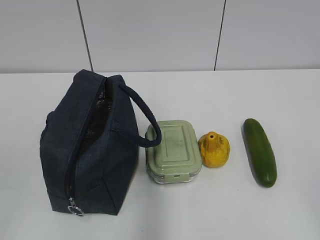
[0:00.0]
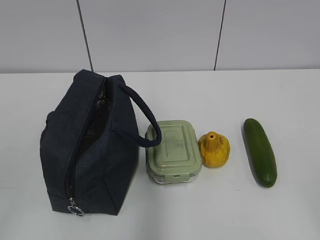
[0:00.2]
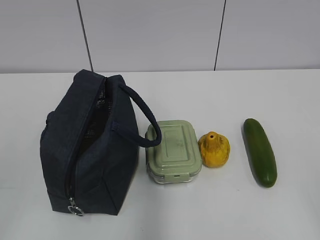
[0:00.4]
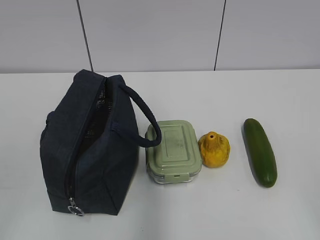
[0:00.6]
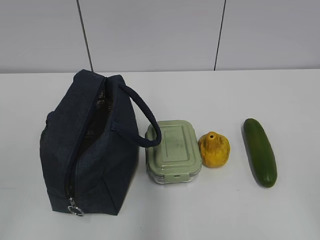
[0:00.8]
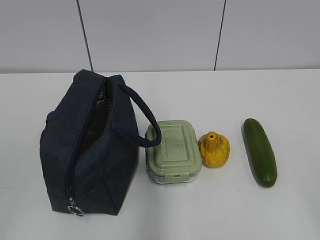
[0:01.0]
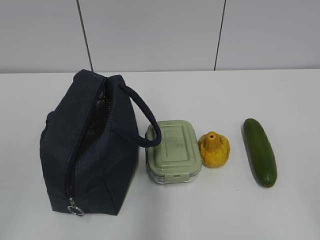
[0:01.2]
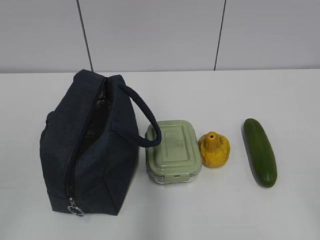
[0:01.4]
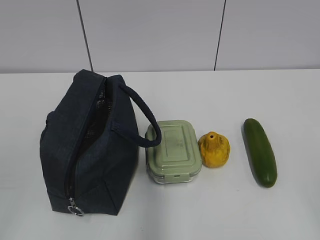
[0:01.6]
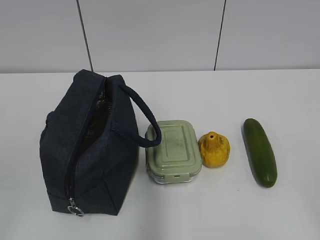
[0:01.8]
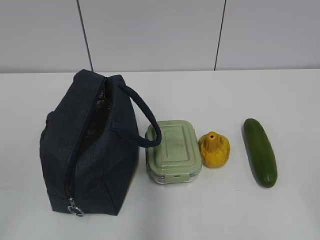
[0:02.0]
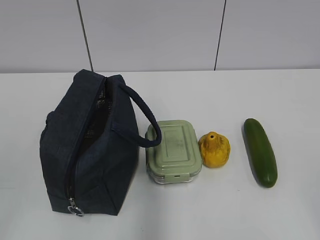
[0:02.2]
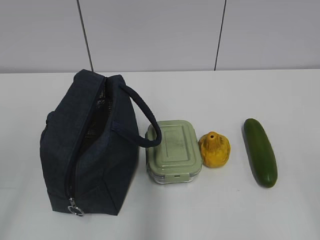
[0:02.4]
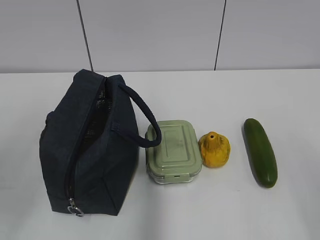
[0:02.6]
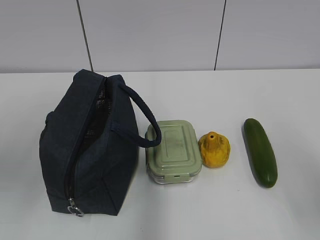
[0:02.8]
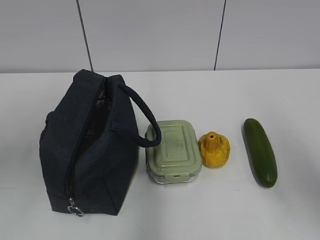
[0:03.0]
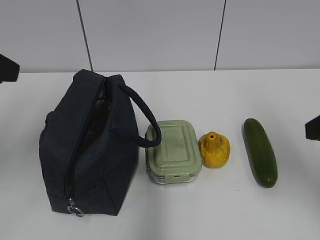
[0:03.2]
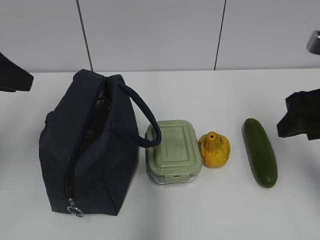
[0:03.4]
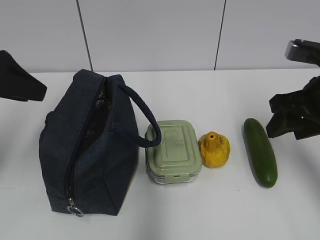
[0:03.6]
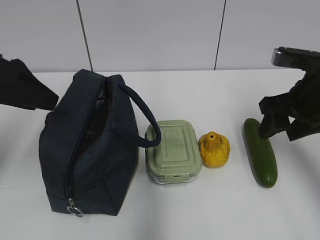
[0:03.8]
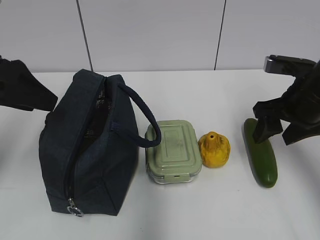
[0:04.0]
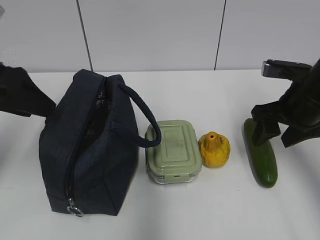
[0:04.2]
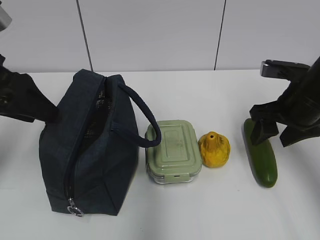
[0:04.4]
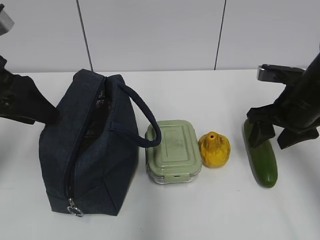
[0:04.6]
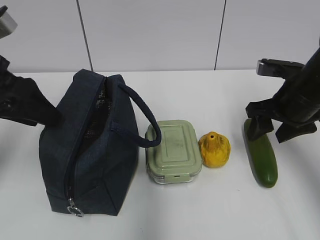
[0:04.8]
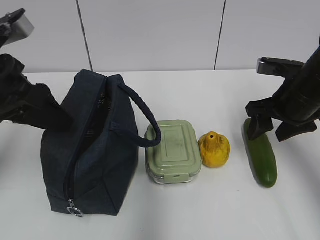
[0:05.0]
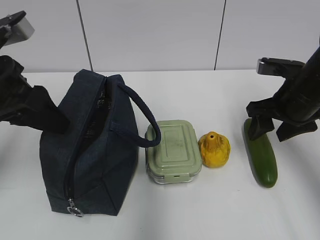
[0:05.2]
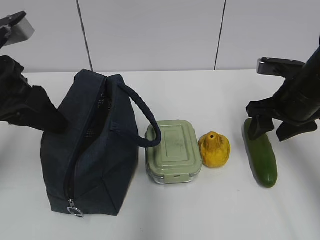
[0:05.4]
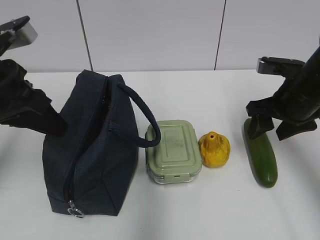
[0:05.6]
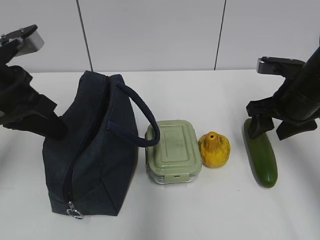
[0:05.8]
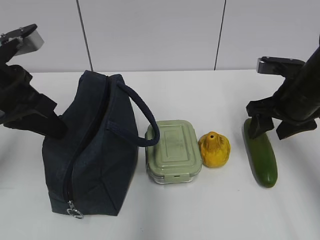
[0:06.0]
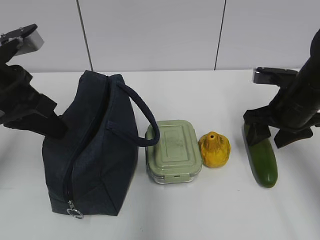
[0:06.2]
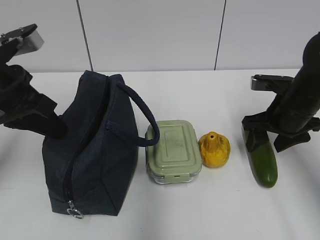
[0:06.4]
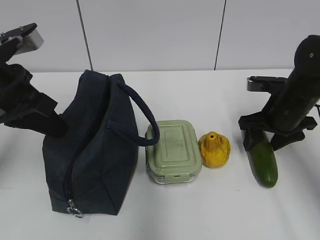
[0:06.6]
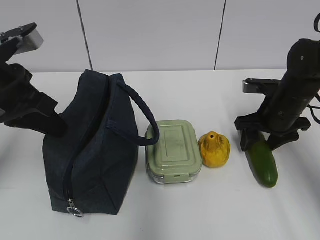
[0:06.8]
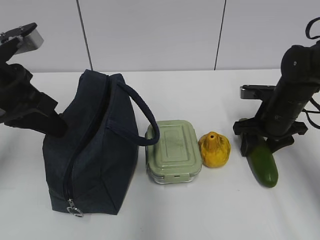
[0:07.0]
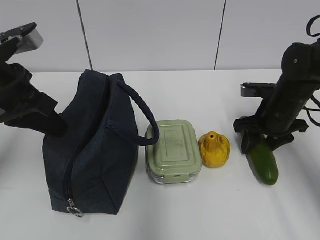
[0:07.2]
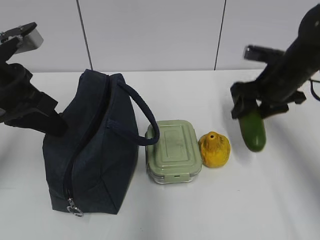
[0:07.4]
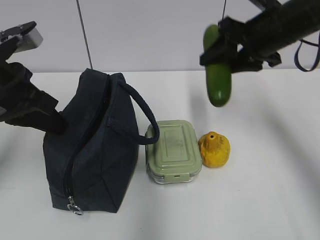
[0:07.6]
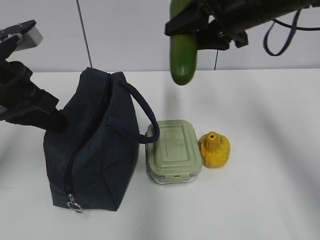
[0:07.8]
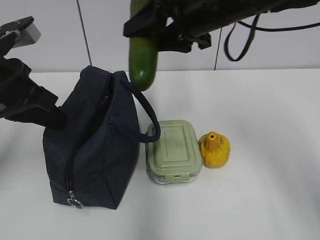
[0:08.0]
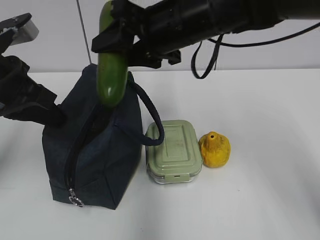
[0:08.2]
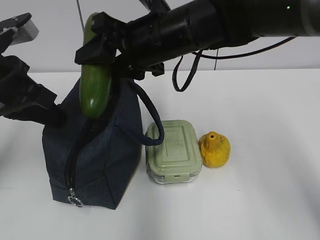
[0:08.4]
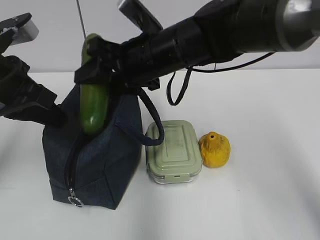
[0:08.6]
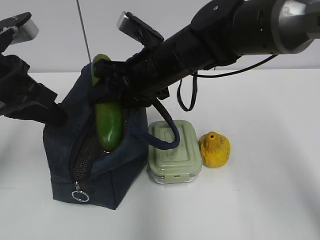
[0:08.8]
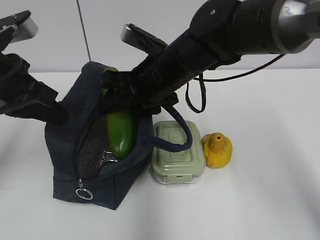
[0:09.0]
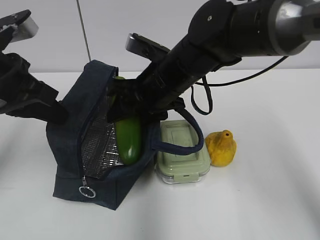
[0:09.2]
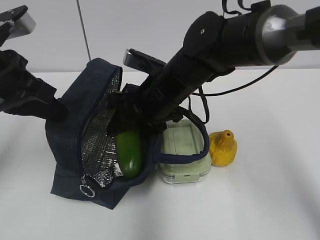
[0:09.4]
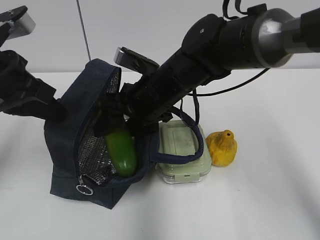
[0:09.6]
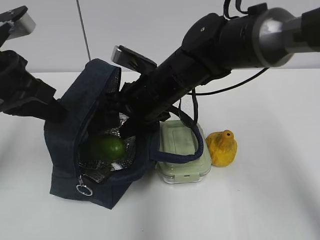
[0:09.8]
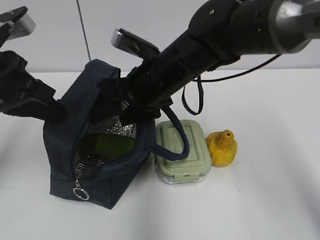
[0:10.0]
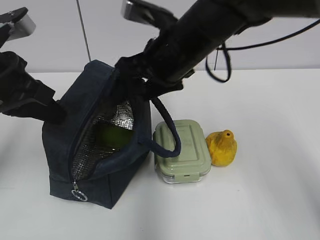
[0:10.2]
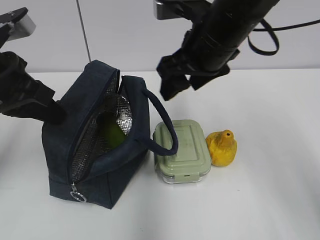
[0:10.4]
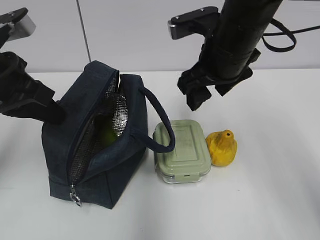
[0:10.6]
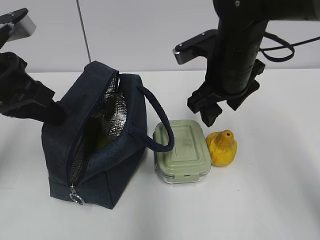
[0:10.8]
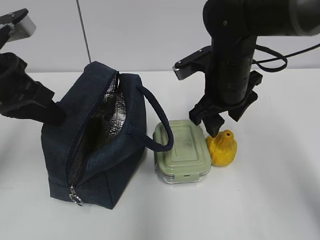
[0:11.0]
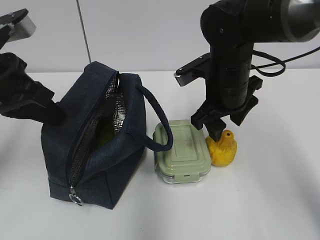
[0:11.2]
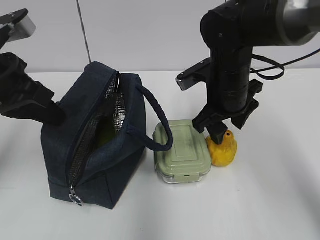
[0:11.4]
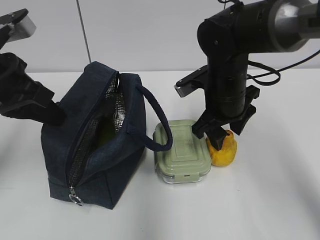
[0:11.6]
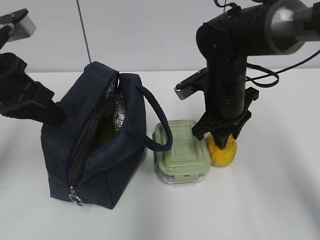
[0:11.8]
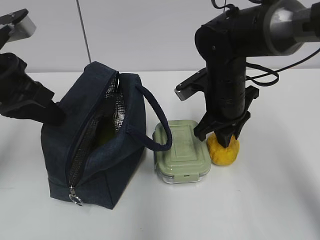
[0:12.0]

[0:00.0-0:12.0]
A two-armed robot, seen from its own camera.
Step, 0:00.0 to 0:06.8: Grab the cucumber with your right hand.
Step, 0:08.8 to 0:10.0: Place it into the bag with your right hand.
Step, 0:10.2 to 0:11.8: Grab the pear with your right hand.
0:01.6 to 0:03.0: Both grippers move forward, roughly 15 cm.
0:03.0 to 0:04.4: The left gripper is displaced forward and downward by some 10 cm. Meanwhile the right gripper shifts roughly 20 cm forward and downward.
0:04.4 to 0:06.0: The left gripper closes up.
0:06.0 to 0:07.6: The right gripper heads upward, covering some 10 cm.
0:07.6 to 0:09.0: The right gripper goes roughly 15 cm to the left.
0:09.0 to 0:10.4: The right gripper goes roughly 10 cm to the right and upward.
0:10.4 to 0:12.0: The right gripper is displaced downward by roughly 10 cm, and closes.

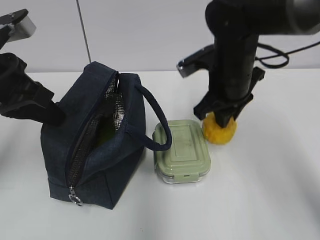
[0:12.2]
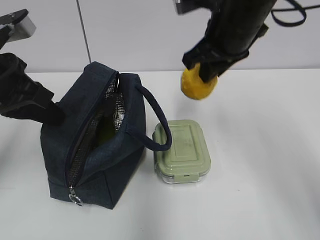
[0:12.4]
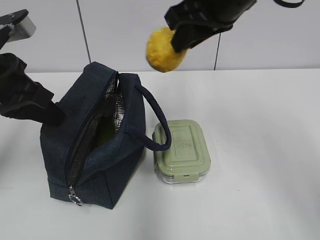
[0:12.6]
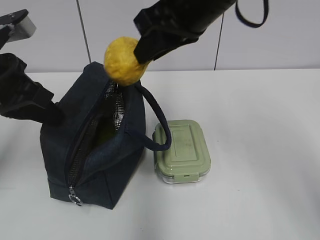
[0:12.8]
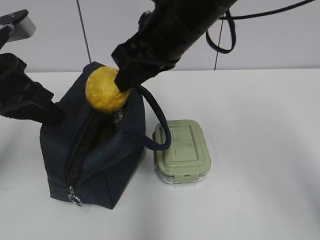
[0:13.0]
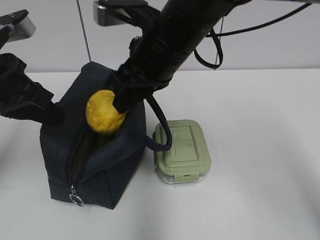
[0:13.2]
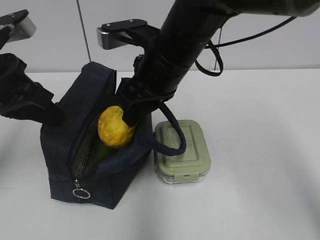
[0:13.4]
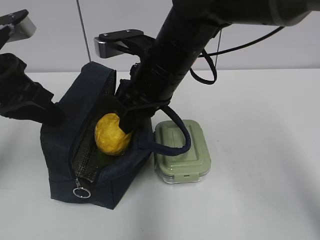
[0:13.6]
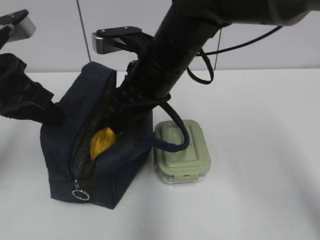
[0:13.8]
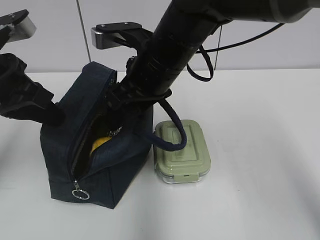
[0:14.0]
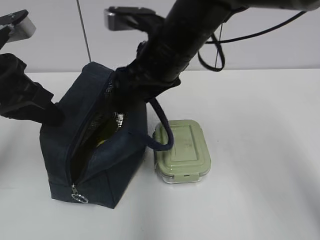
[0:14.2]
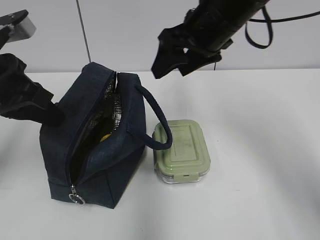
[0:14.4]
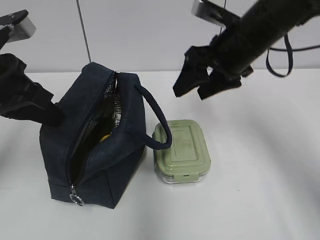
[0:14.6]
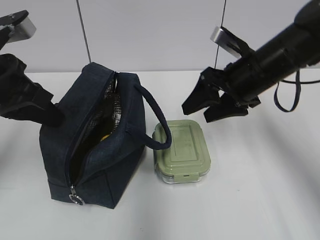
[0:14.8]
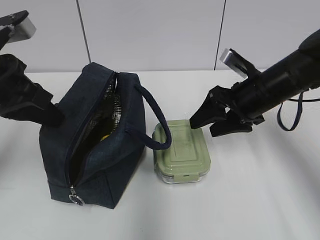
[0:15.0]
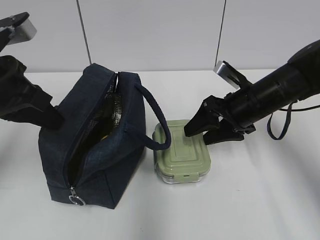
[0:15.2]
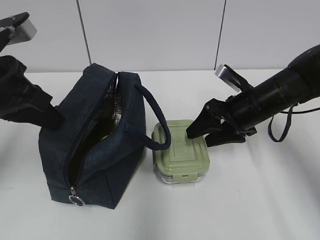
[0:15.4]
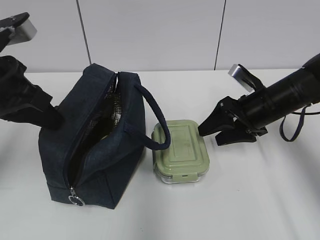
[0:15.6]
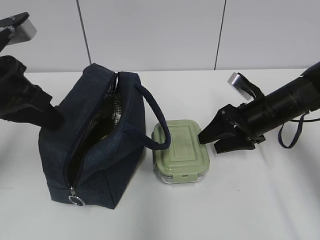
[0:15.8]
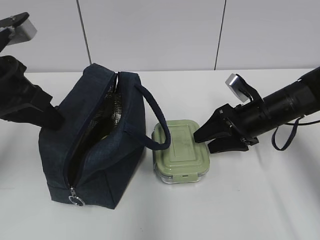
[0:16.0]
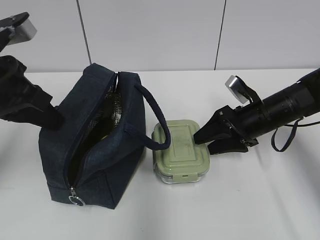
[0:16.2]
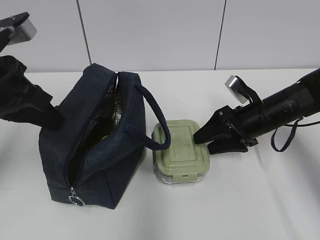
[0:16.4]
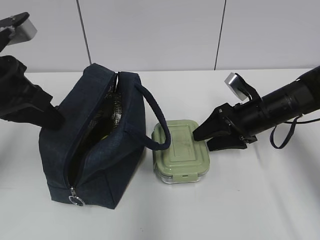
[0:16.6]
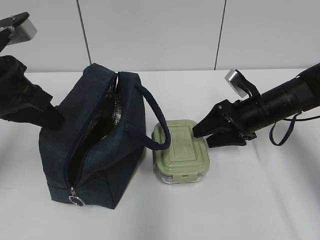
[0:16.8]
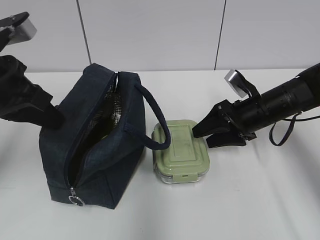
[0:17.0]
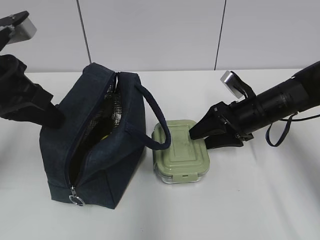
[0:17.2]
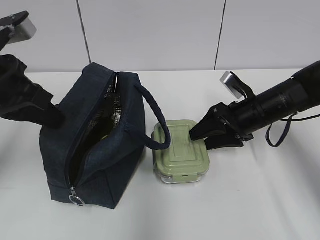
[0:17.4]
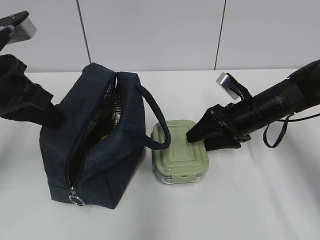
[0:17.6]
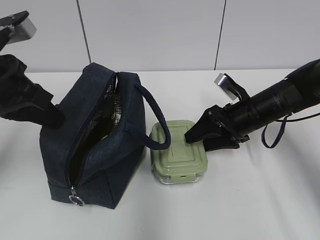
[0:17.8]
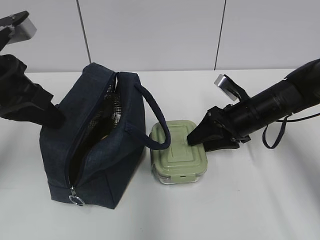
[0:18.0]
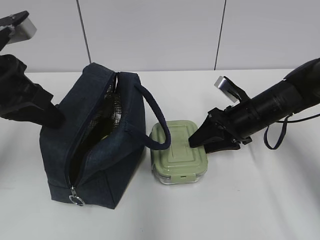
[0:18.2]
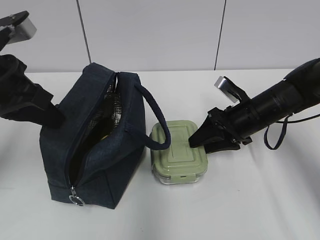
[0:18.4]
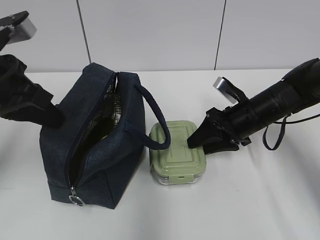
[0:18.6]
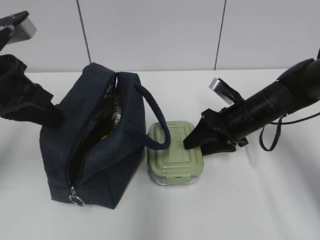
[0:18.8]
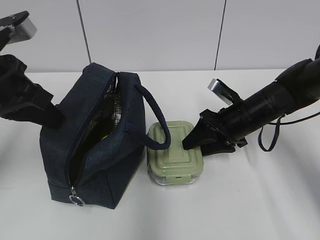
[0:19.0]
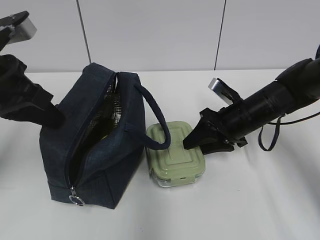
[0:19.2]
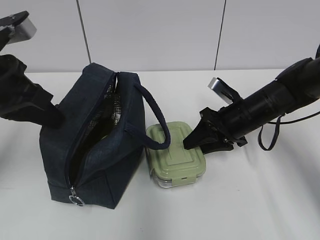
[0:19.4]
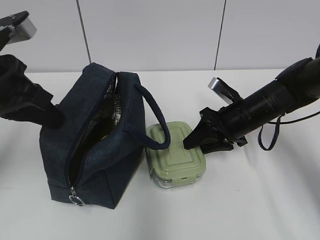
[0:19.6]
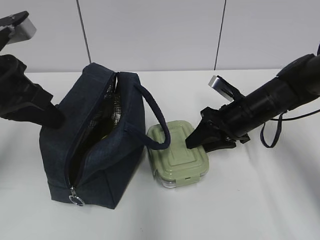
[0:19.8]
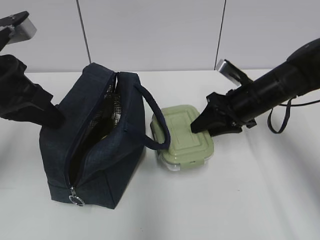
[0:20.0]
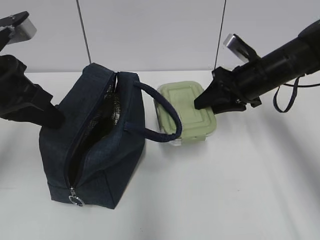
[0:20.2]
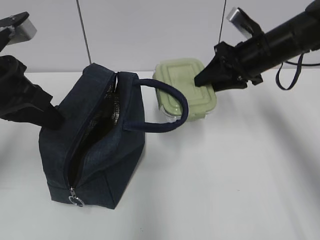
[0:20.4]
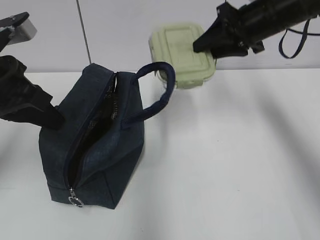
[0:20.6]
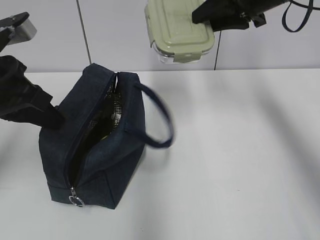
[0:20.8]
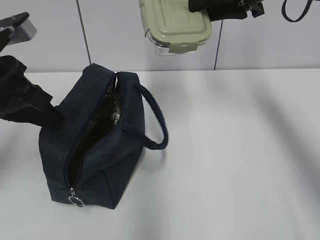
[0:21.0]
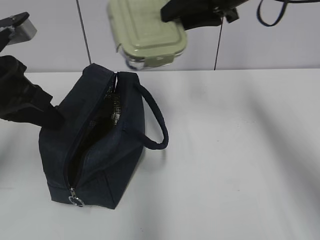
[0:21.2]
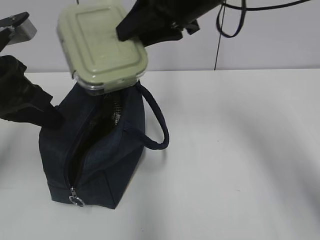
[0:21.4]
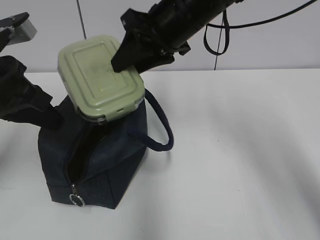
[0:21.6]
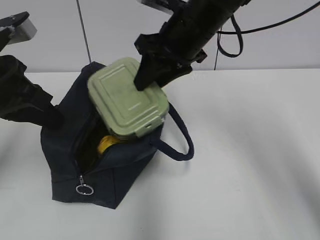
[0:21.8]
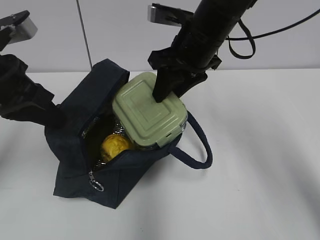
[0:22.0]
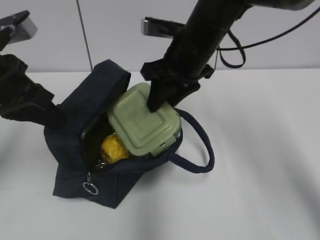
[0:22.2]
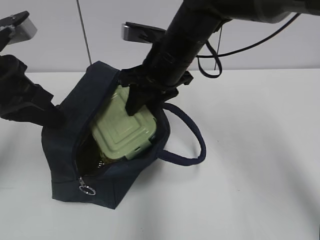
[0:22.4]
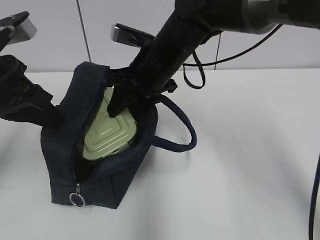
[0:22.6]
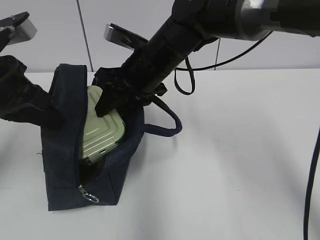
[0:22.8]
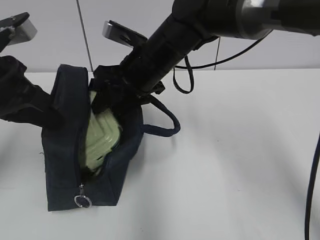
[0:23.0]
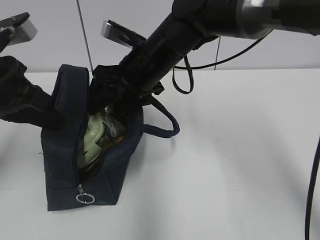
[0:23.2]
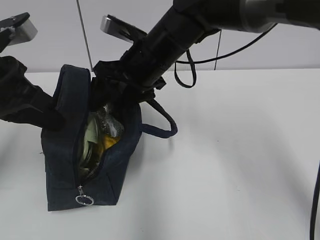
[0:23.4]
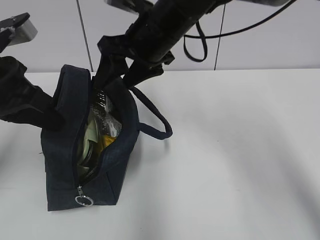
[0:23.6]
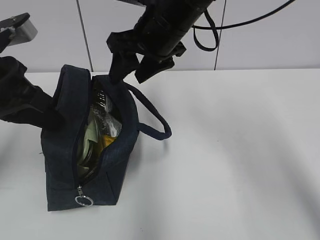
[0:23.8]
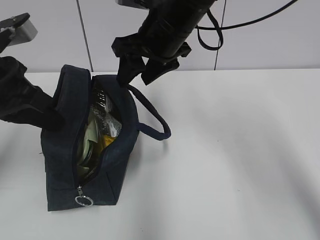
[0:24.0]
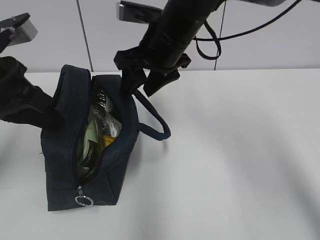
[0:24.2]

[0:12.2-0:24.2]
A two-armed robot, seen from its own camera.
Step, 0:12.2 to 0:13.8: Place it into the bag with your right hand.
Step, 0:14.2 to 0:19.0: Grab the lunch box with your right hand.
0:12.2 to 0:13.8: The right gripper heads to the left, covering some 10 cm, travels upward and back again, roughly 15 cm each way, and opens.
0:13.8 to 0:15.2: The right gripper moves to the right and downward, approximately 20 cm.
0:15.2 to 0:16.6: The right gripper changes place by approximately 5 cm.
0:16.6 to 0:18.2: There are only small adjustments of the grippers.
0:18.2 to 0:19.8: The two grippers keep their place.
0:19.8 to 0:21.2: The right gripper goes roughly 20 cm upward.
0:21.2 to 0:22.6: The right gripper shifts approximately 15 cm to the left and downward.
